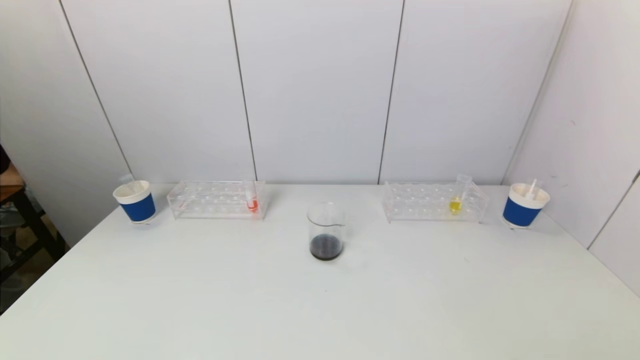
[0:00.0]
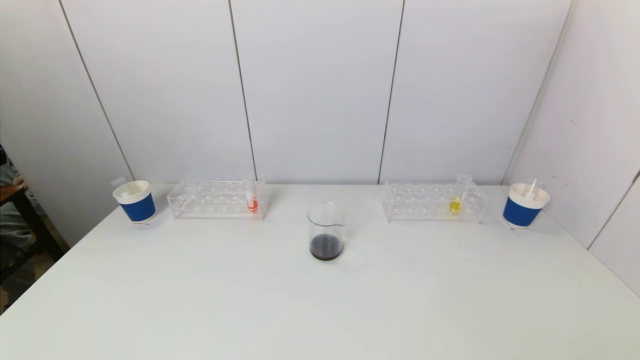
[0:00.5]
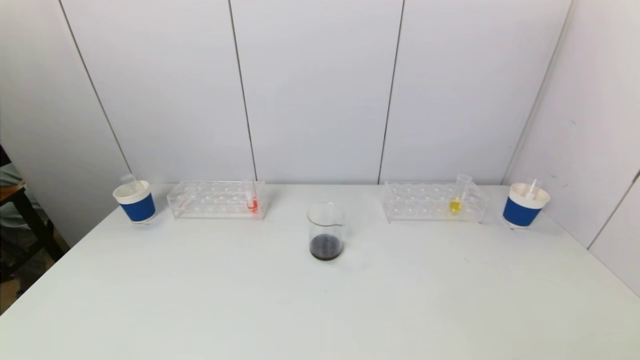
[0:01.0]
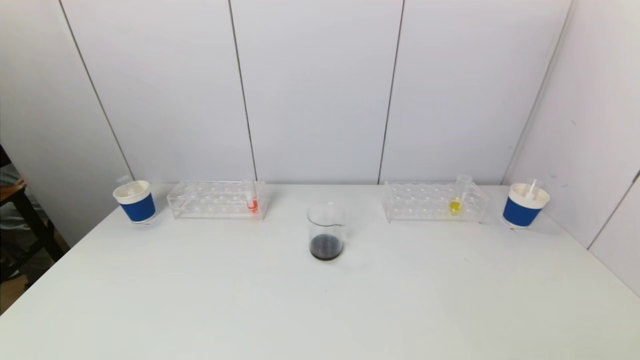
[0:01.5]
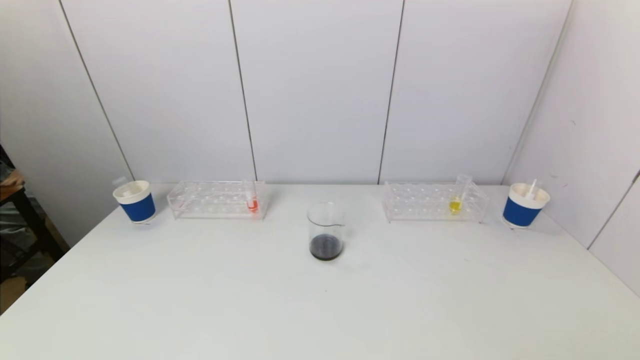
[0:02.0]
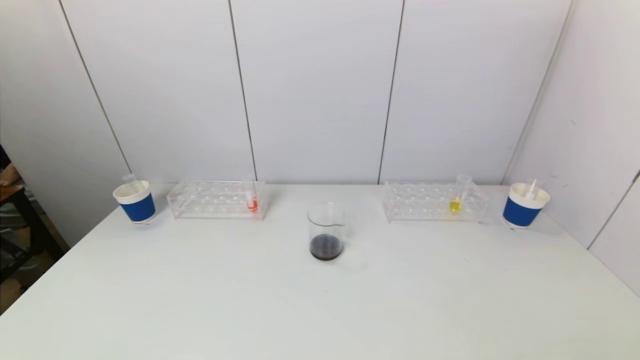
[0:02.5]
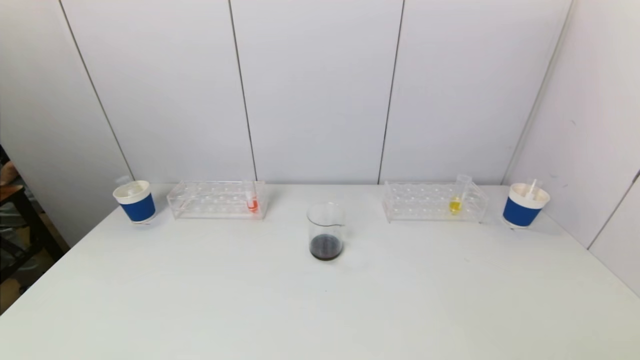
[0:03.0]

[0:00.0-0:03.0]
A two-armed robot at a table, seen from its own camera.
Task of the whole recording: pick up a test tube with pigment on left test tube rack and a test tube with pigment on right test tube rack by grippers and pour them into the beaker.
0:01.5 to 0:03.0: Both grippers stay put.
